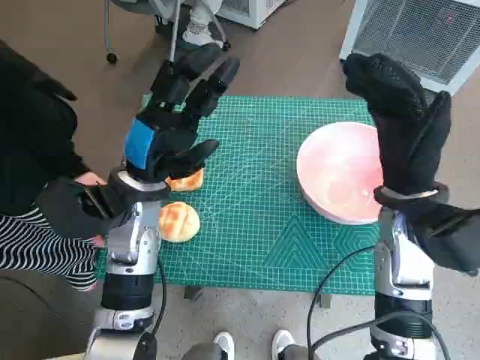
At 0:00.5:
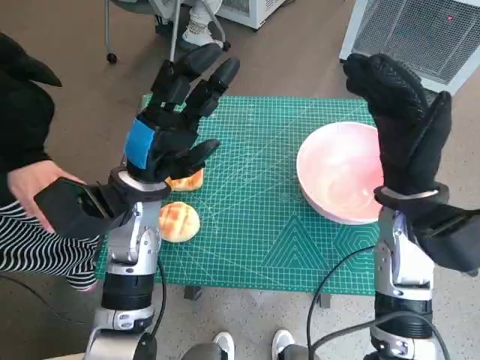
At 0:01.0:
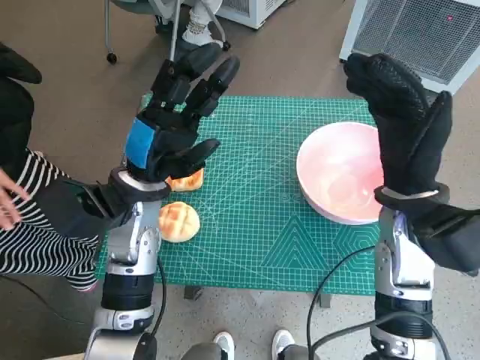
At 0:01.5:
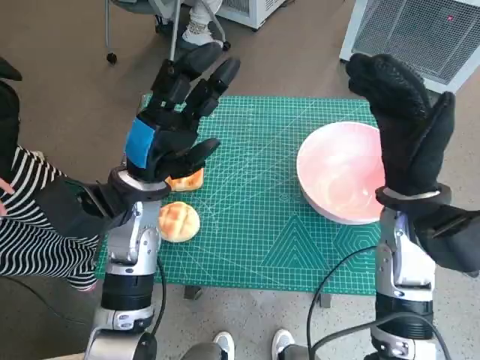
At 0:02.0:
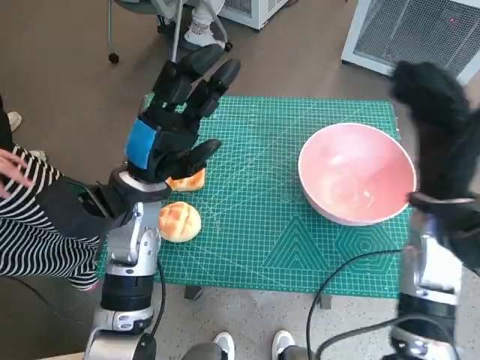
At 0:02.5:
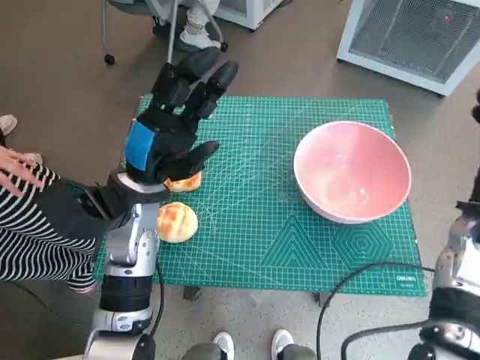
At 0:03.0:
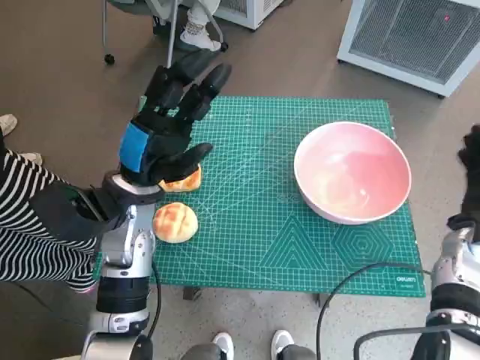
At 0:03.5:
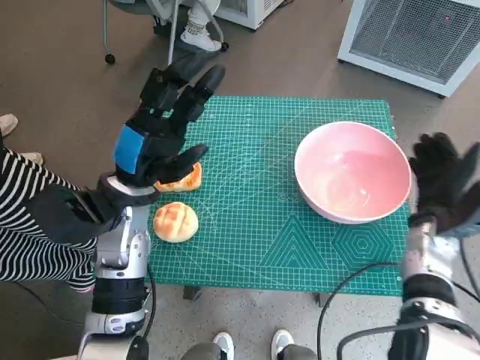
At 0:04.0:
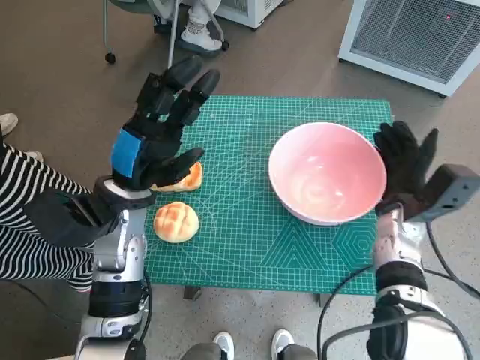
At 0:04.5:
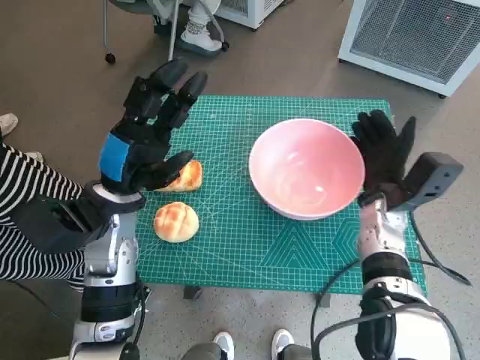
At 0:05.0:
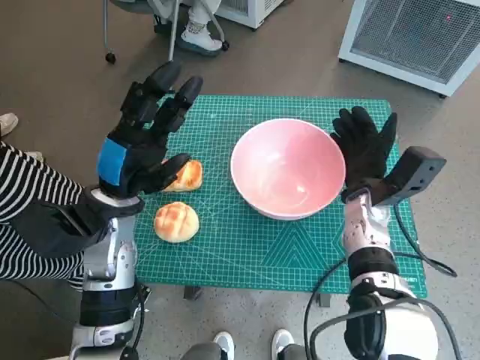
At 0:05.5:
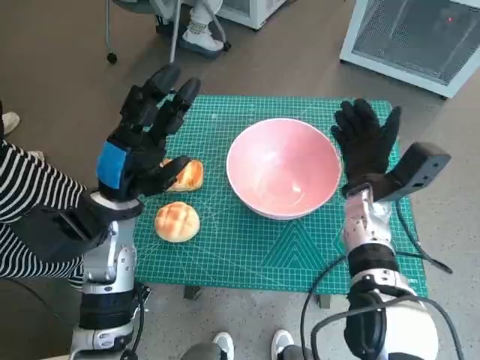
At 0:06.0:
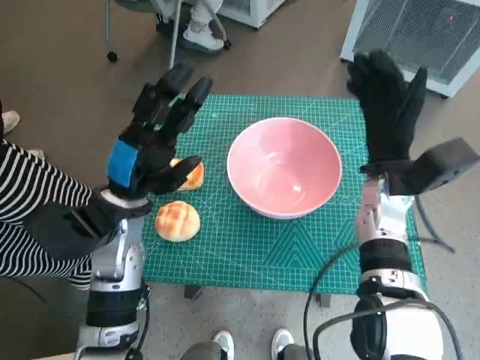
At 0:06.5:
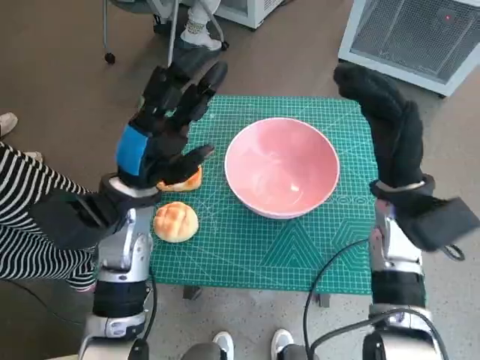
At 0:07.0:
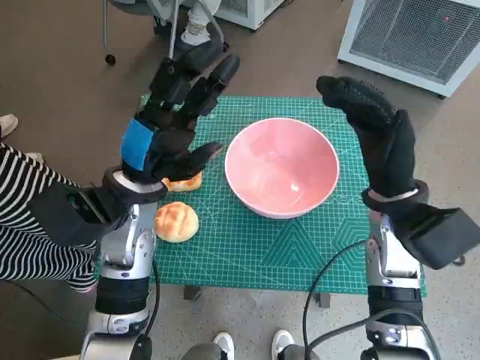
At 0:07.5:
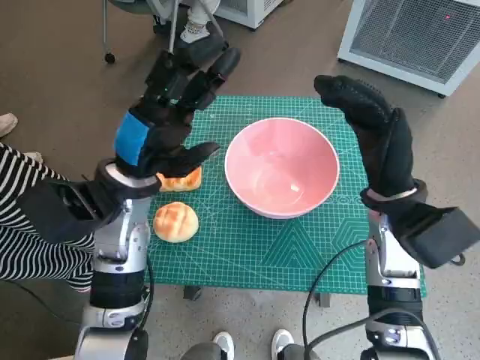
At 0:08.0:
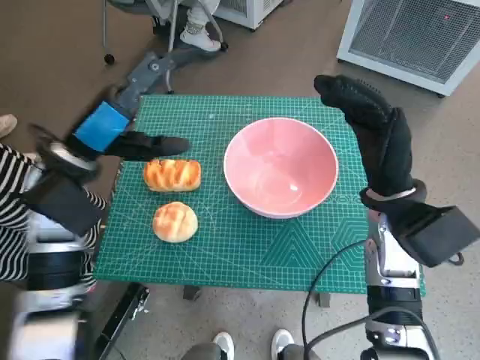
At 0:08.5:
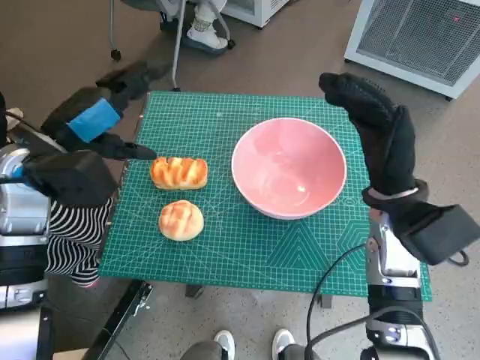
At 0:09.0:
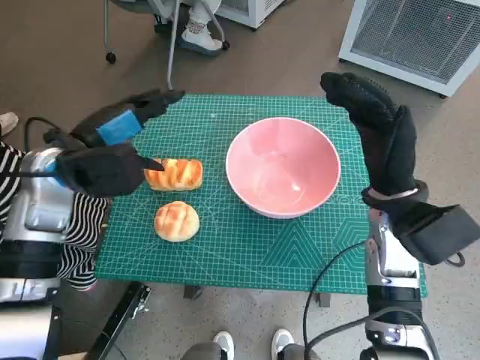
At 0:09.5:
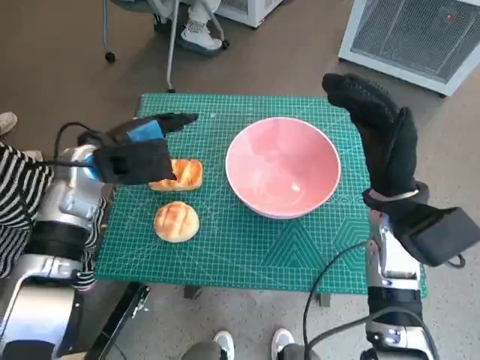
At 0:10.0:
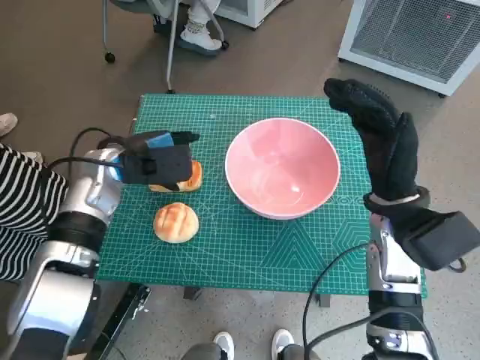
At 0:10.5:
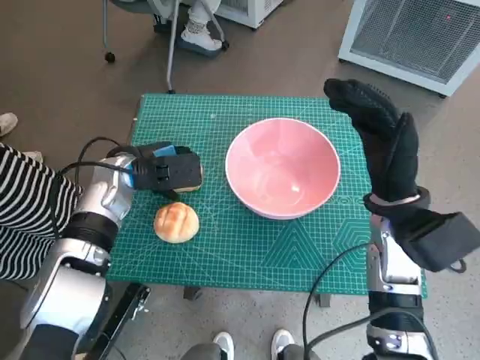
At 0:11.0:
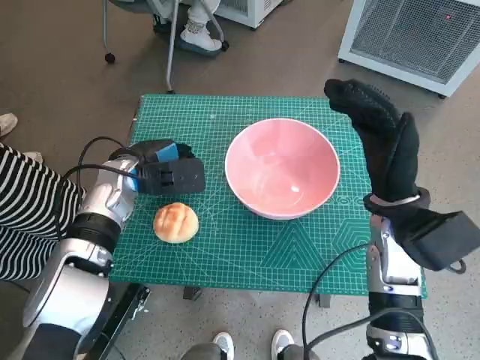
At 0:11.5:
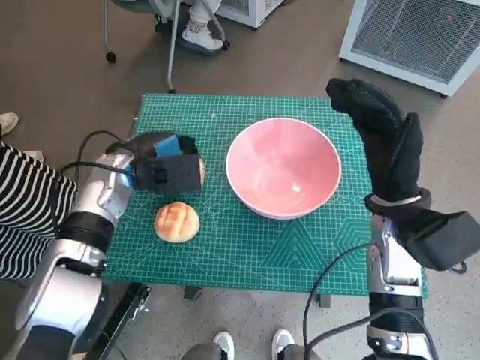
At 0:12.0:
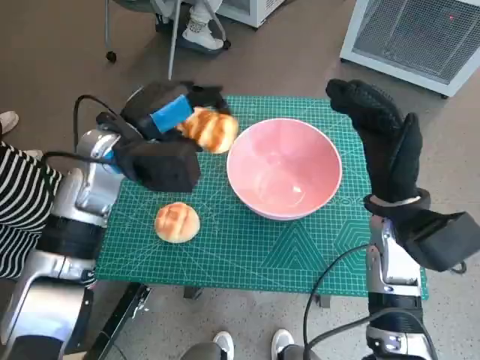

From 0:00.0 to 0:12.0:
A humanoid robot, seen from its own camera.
Task of the whole recording: Push the bowl into the center of the table and put the bread into the bowl.
Step, from 0:00.0 to 0:05.5: Move the pink bowl to the center of table with right hand.
Step, from 0:06.0 to 0:11.0: Grasp the long bread with left hand.
From 0:02.0 to 0:04.0: The right hand heads downward, covering about 10 cm.
From 0:04.0 to 0:06.0: The right hand goes roughly 5 cm upward.
From 0:06.0 to 0:08.0: The right hand is displaced backward by some 5 cm. Meanwhile the left hand is displaced upward by approximately 5 cm.
From 0:08.0 to 0:10.0: The left hand is displaced forward and downward by about 10 cm.
From 0:10.0 to 0:12.0: The left hand is displaced upward by approximately 5 cm.

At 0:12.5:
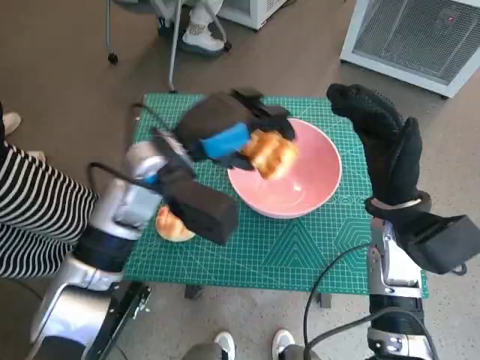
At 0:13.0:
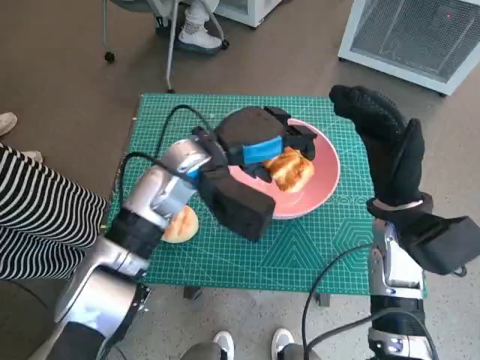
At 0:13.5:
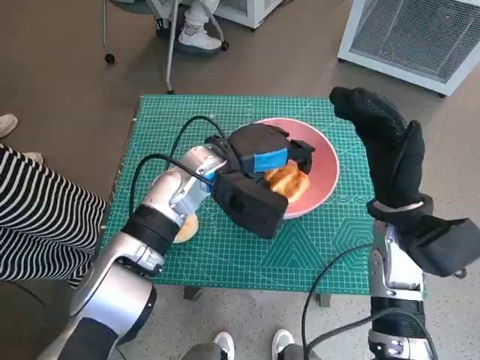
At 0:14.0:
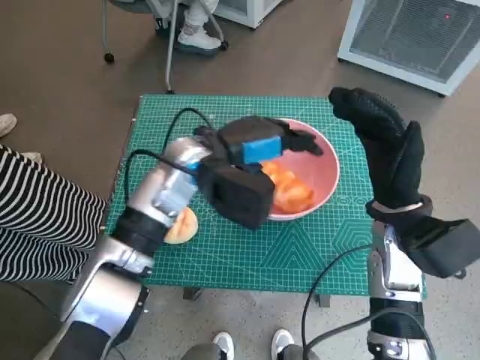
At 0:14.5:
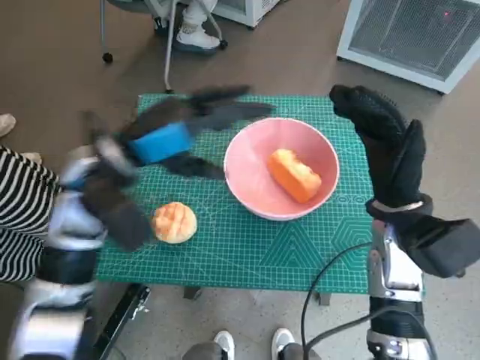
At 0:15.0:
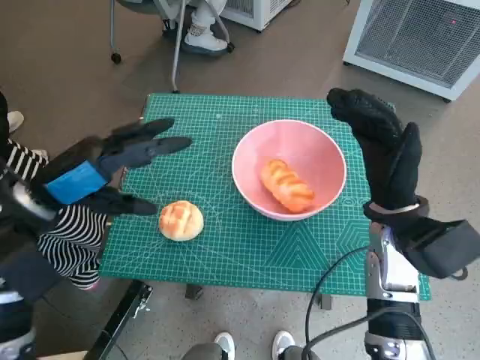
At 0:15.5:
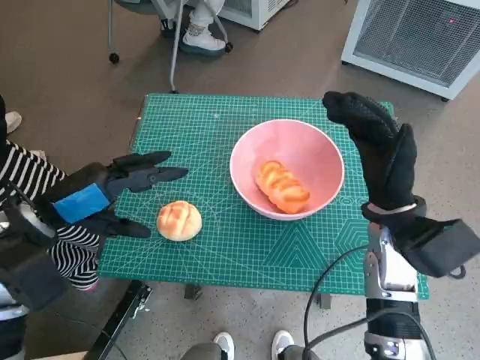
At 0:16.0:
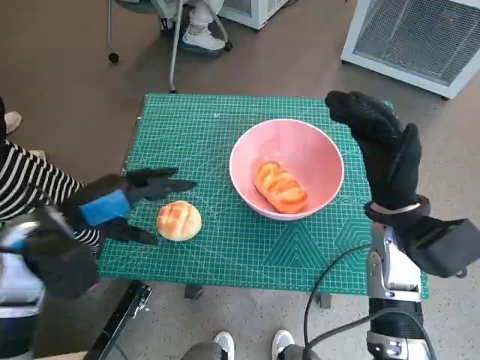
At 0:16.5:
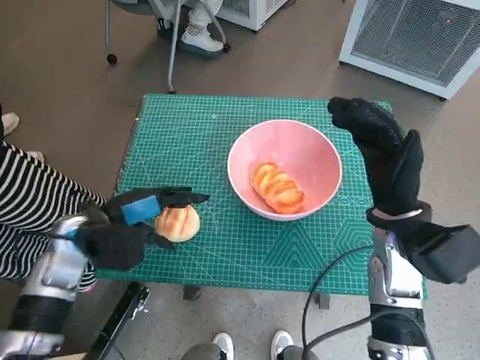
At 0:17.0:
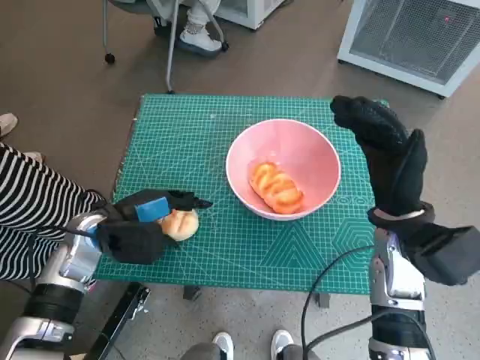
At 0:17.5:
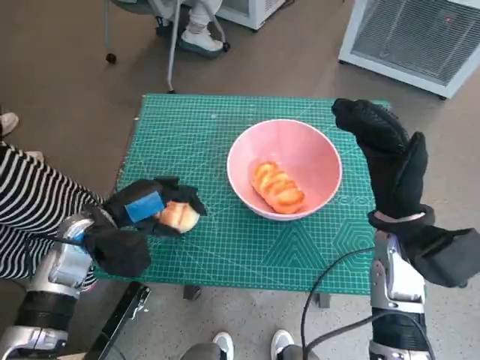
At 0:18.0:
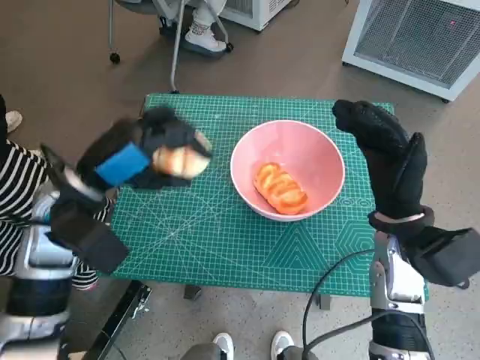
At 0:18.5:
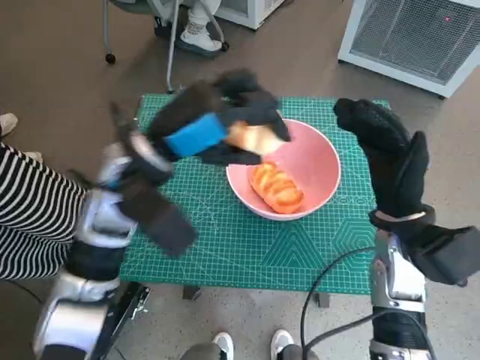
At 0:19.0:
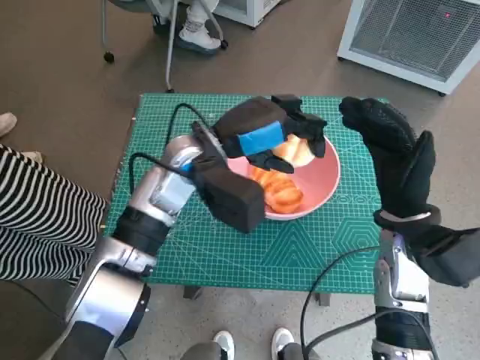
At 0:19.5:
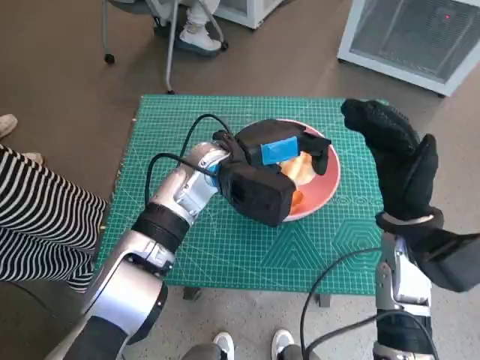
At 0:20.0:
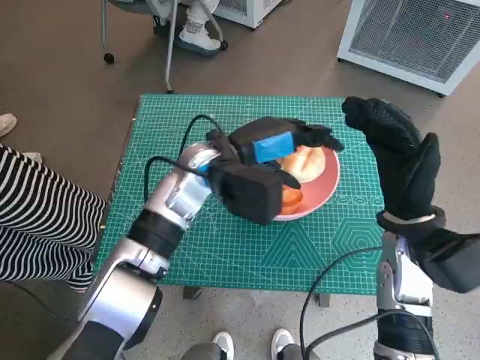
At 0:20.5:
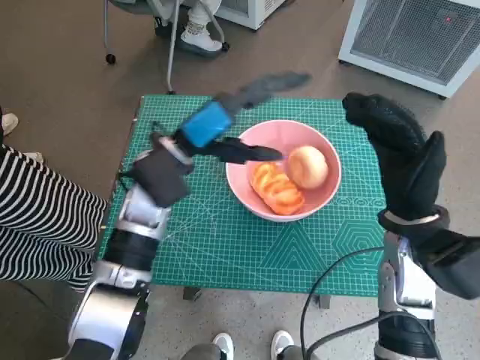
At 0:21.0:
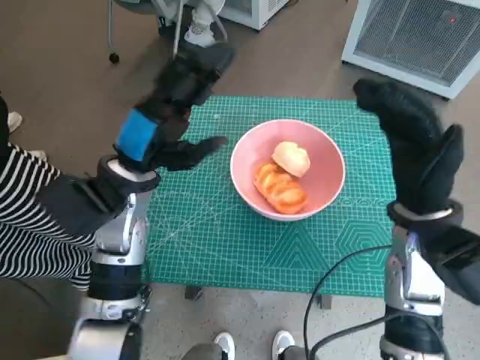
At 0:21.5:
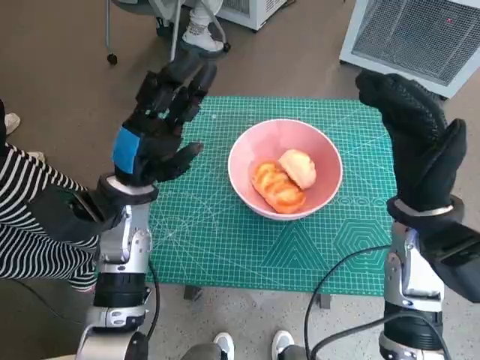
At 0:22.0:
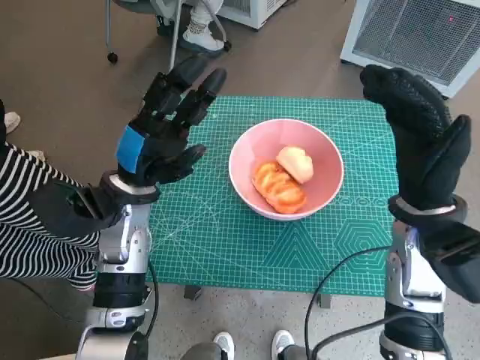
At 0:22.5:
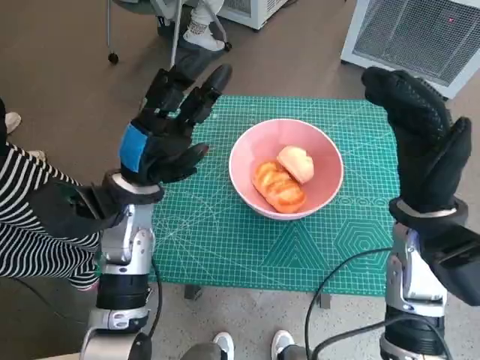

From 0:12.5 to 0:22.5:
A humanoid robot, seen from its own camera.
Task of the whole recording: Push the bowl into the center of the table and put the bread into the bowl.
Step, from 0:14.5 to 0:17.0: Grasp the round bread with left hand.
Step, from 0:17.5 to 0:20.5: Place the round bread in pink bowl with left hand.
From 0:14.5 to 0:16.5: The left hand heads downward and to the left, covering approximately 15 cm.
From 0:16.5 to 0:18.5: The left hand is displaced upward and to the right by approximately 15 cm.
From 0:18.5 to 0:20.5: The left hand moves approximately 10 cm to the right and comes back.
From 0:20.5 to 0:22.5: The left hand moves some 5 cm.

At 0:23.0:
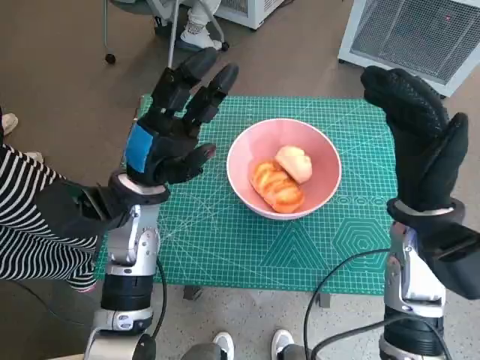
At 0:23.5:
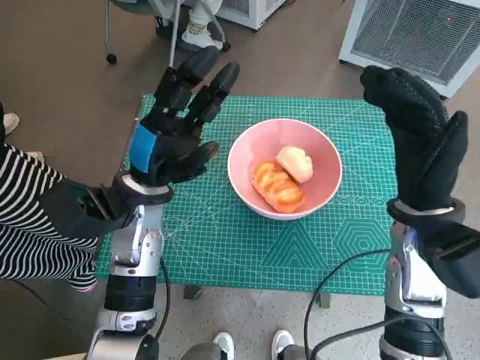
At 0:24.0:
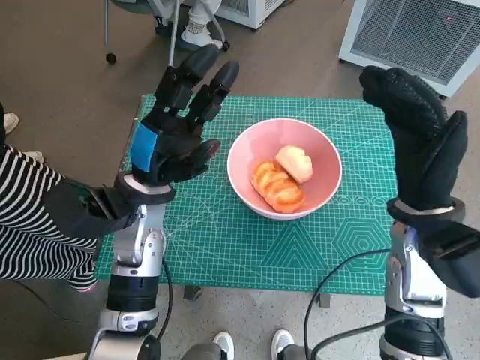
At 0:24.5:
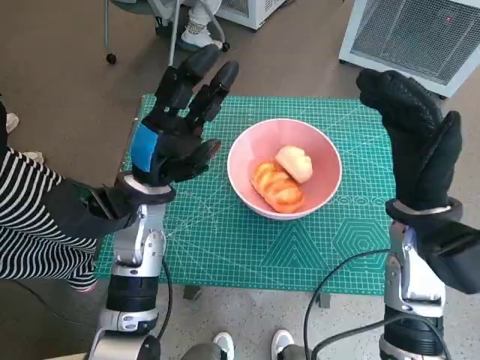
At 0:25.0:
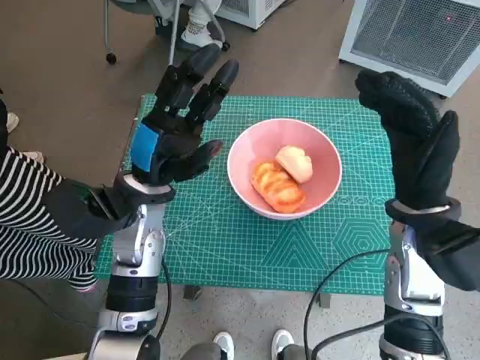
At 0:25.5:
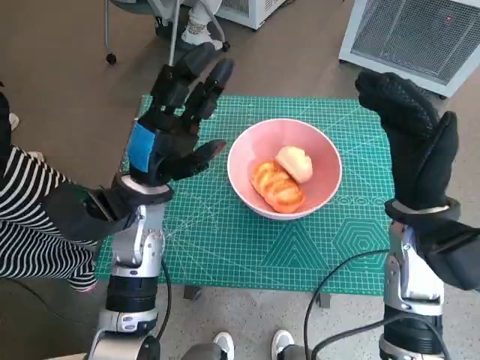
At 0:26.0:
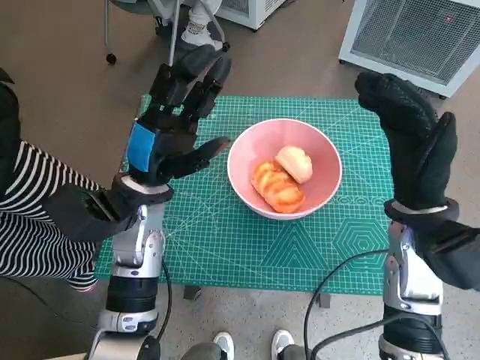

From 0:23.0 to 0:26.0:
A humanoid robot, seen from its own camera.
Task of the whole recording: Push the bowl into the center of the table and put the bread into the bowl.
From 0:23.0 to 0:24.5: Both hands stay put.
From 0:24.5 to 0:26.0: Neither hand changes place.
